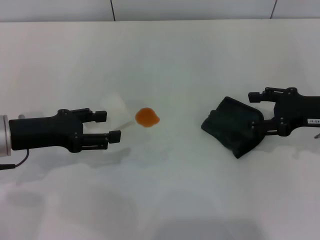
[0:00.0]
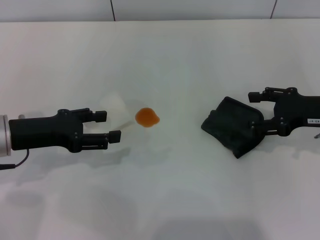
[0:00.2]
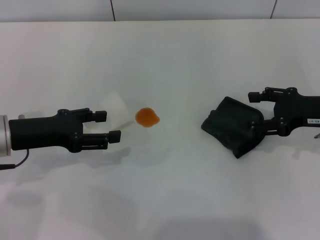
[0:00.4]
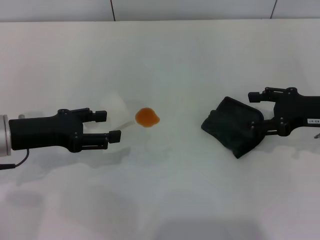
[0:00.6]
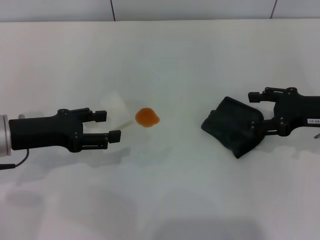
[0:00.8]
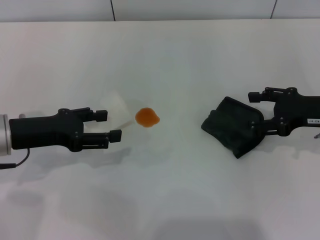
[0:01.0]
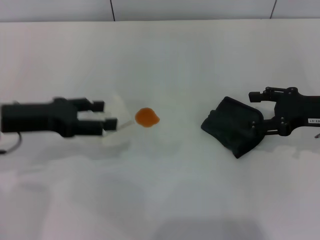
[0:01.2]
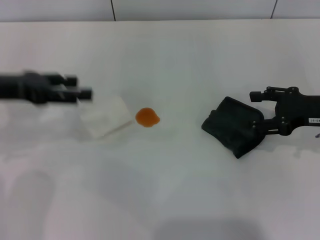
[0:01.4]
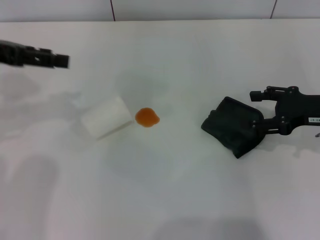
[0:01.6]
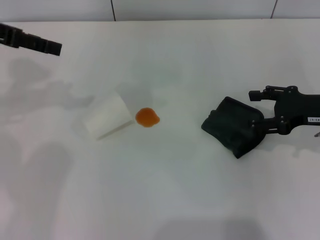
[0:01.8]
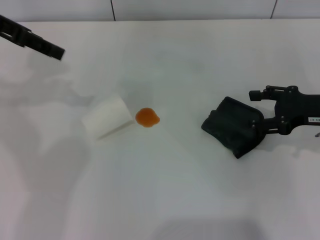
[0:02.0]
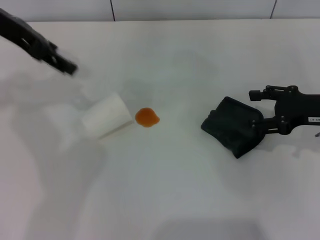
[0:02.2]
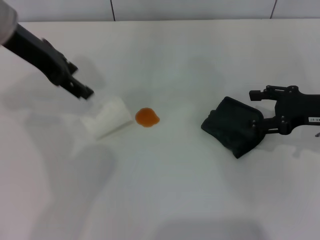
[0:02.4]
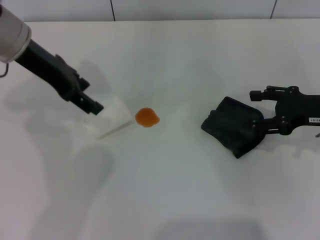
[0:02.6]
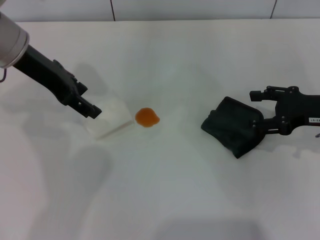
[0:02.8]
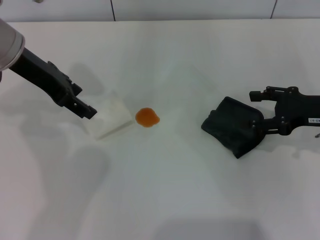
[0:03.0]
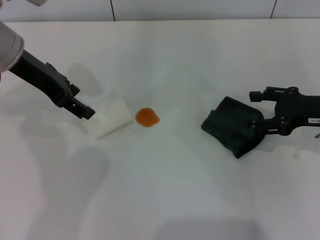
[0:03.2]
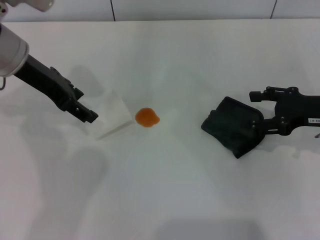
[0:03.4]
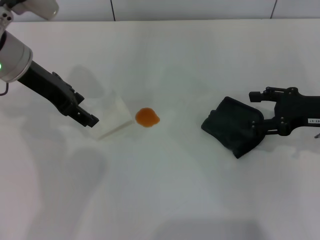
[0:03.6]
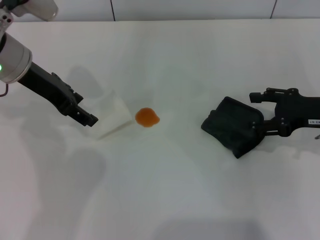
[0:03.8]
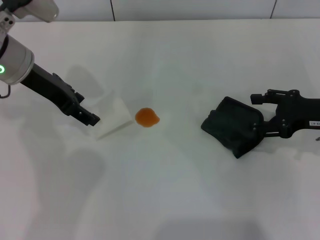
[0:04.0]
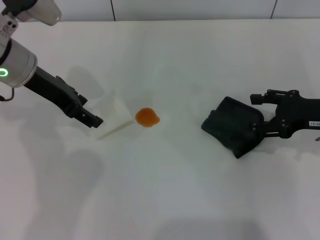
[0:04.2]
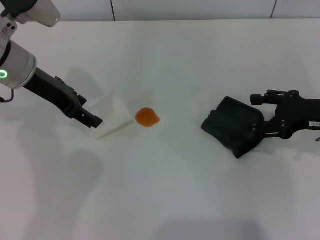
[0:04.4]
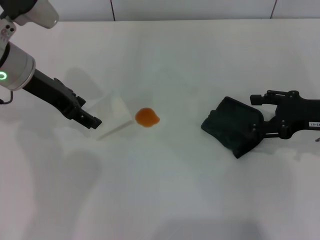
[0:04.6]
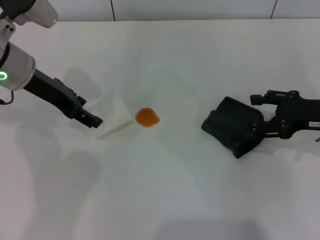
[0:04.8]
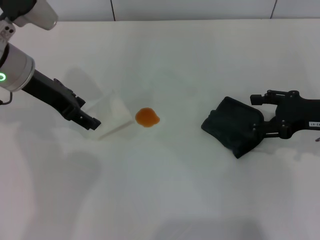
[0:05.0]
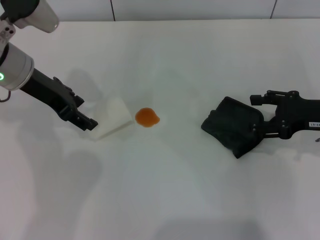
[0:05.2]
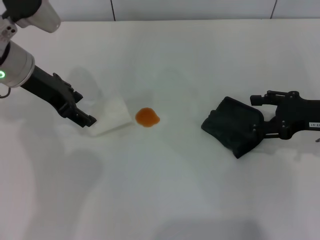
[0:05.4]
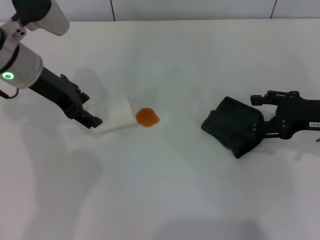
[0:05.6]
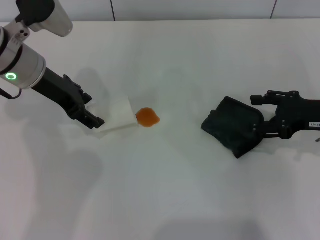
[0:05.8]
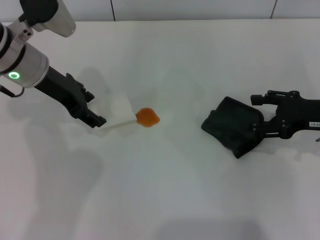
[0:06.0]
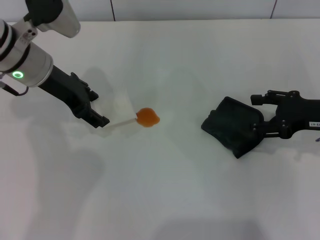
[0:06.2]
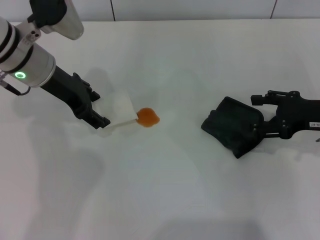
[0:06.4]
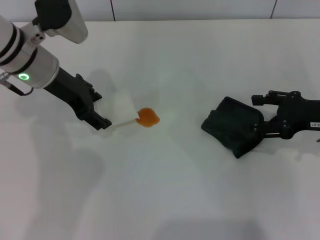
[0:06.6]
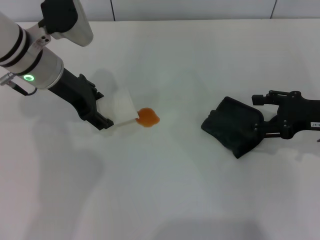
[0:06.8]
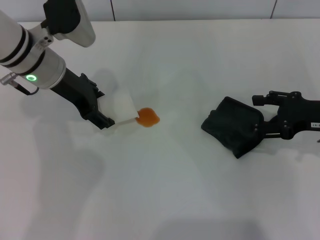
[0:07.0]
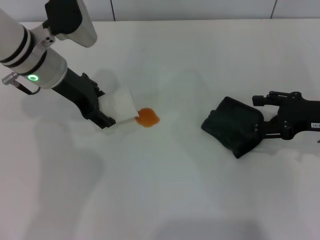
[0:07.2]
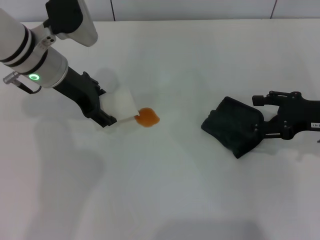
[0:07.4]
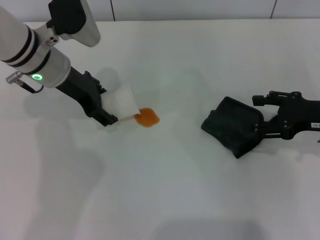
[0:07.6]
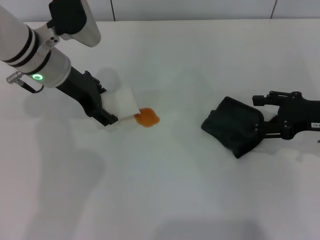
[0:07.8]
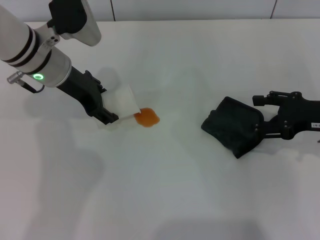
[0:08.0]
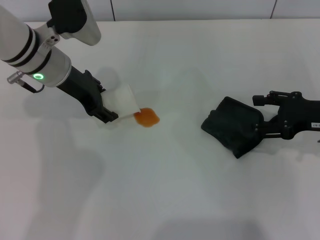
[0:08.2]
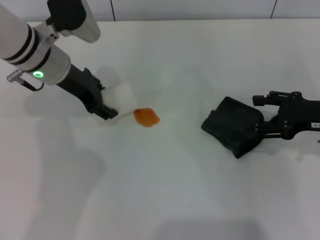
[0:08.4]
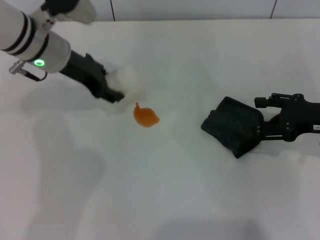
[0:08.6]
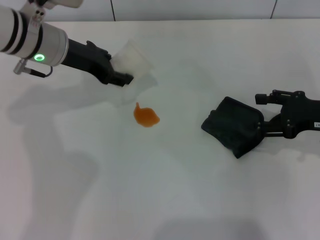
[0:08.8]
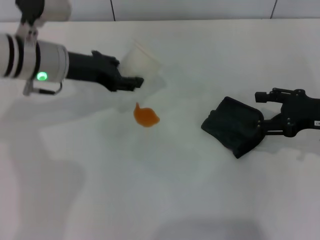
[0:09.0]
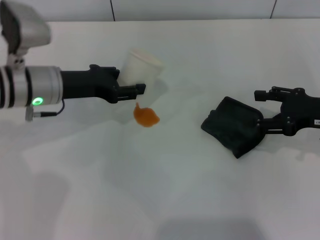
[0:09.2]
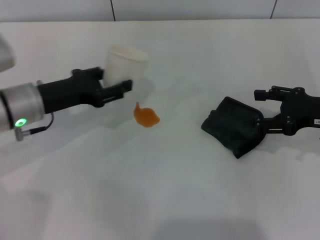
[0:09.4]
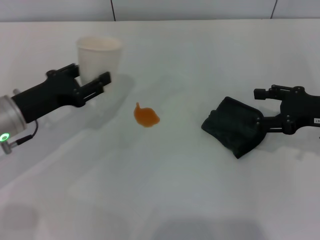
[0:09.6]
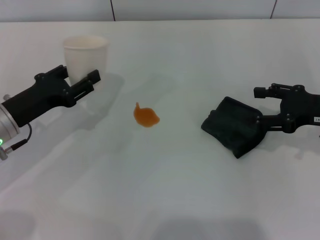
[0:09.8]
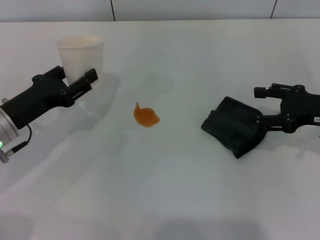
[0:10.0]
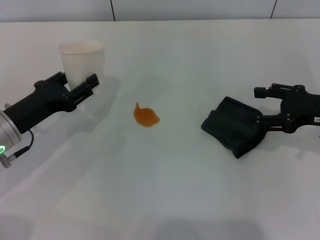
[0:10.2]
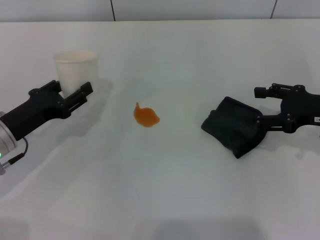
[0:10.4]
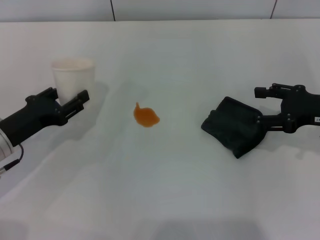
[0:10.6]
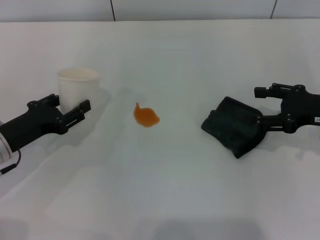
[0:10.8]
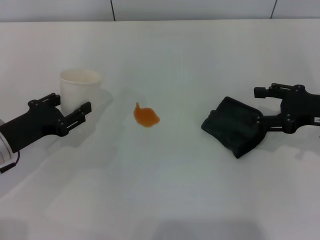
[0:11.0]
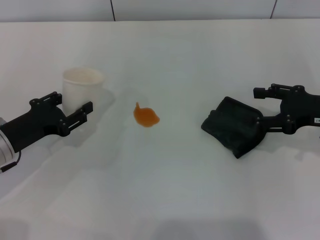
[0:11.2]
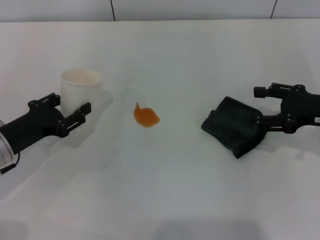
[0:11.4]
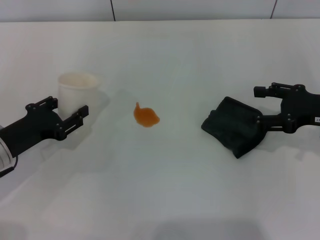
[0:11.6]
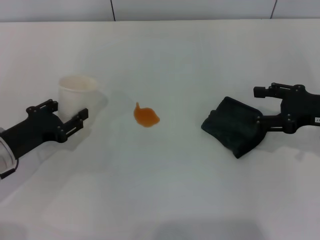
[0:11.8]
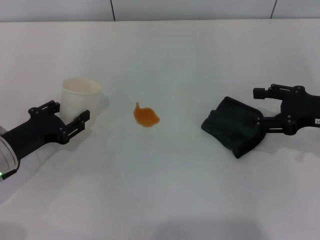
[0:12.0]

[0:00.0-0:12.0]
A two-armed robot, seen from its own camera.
Step, 0:00.0 to 0:08.4: Grasp the paper cup with the left gripper.
0:00.0 to 0:01.6: The left gripper goes roughly 15 cm upward and forward.
0:01.6 to 0:03.0: The left gripper shifts roughly 10 cm to the right.
0:03.0 to 0:06.0: There are only small adjustments of the grippers.
0:06.0 to 0:07.6: The grippers stay close to where they were, moving slightly.
0:07.6 to 0:09.0: The left gripper closes up.
0:09.0 to 0:10.4: The left gripper heads backward, to the left and downward, covering some 15 cm.
0:10.4 to 0:12.0: The grippers make only small movements.

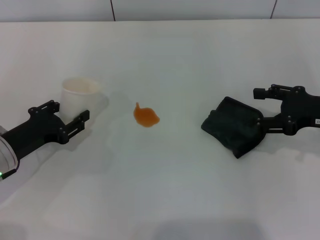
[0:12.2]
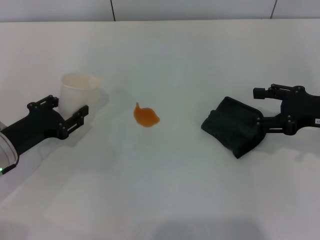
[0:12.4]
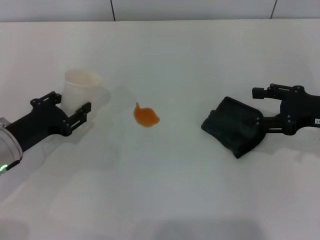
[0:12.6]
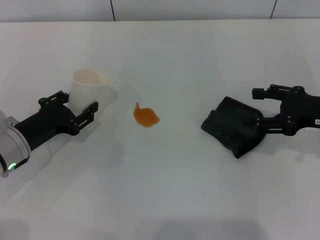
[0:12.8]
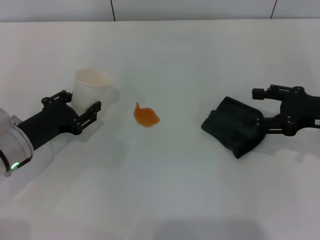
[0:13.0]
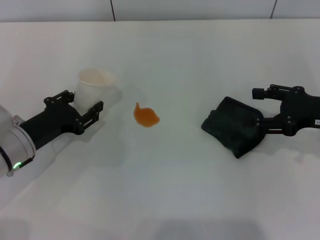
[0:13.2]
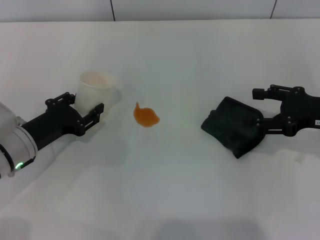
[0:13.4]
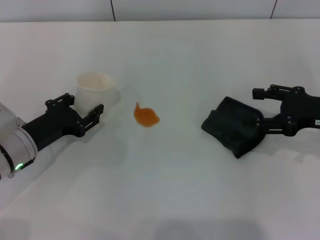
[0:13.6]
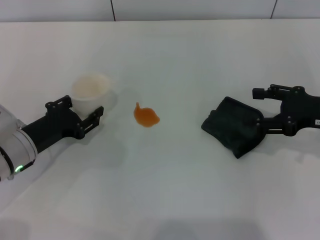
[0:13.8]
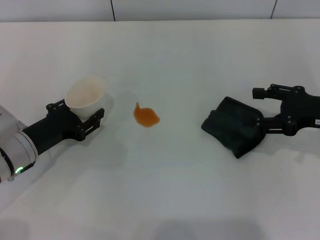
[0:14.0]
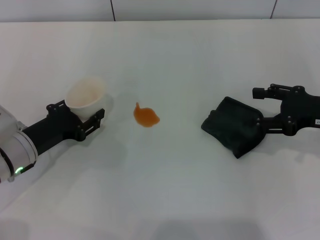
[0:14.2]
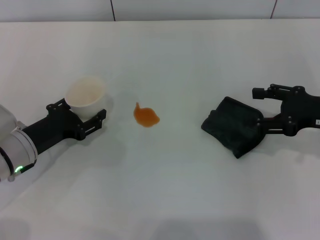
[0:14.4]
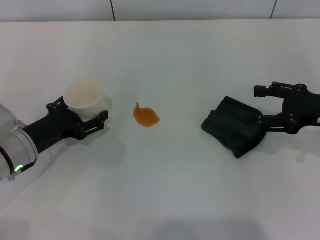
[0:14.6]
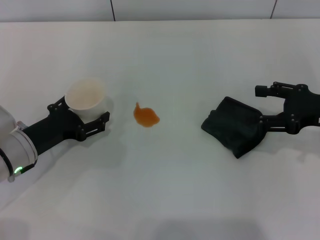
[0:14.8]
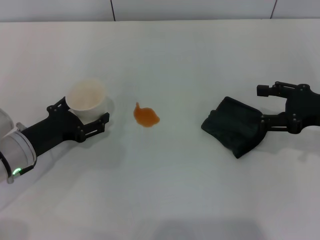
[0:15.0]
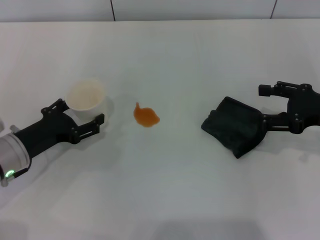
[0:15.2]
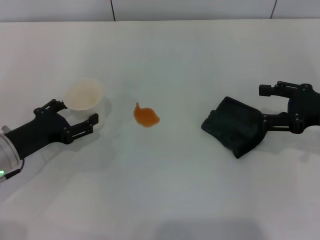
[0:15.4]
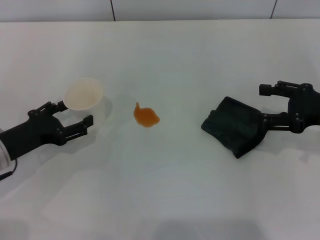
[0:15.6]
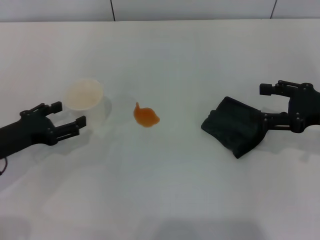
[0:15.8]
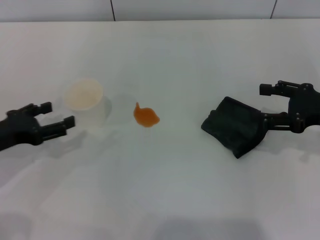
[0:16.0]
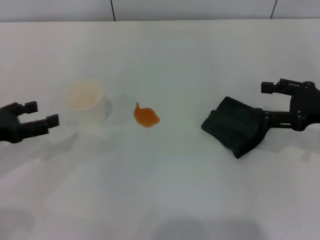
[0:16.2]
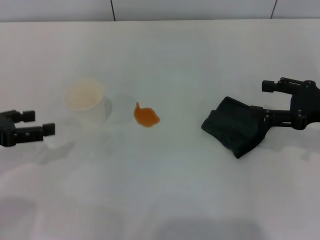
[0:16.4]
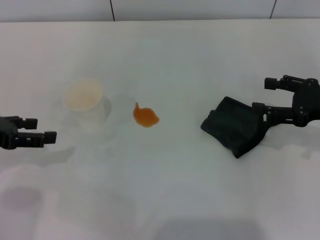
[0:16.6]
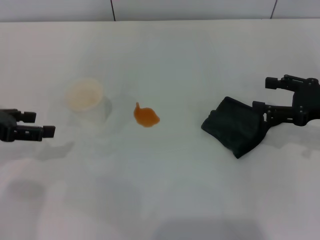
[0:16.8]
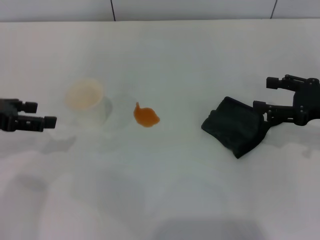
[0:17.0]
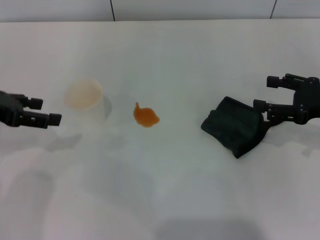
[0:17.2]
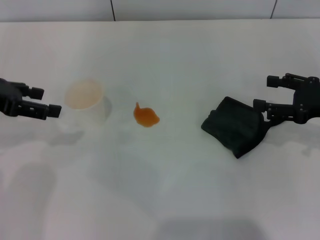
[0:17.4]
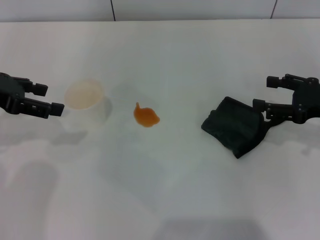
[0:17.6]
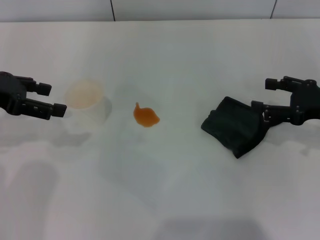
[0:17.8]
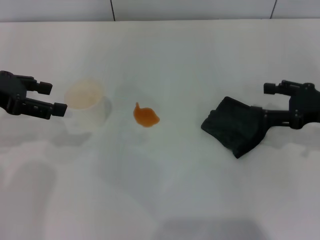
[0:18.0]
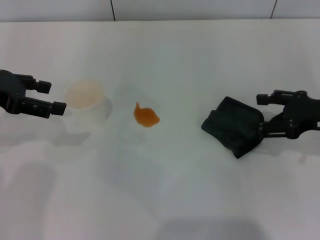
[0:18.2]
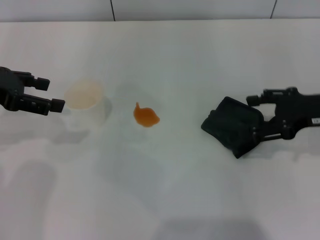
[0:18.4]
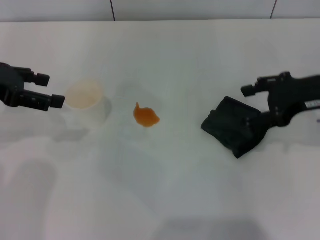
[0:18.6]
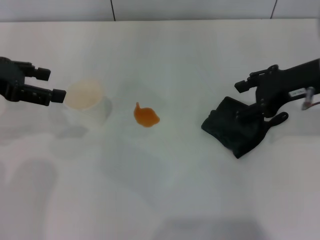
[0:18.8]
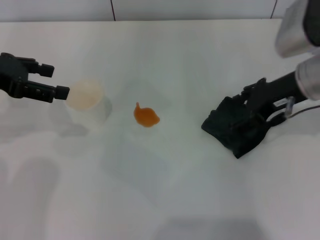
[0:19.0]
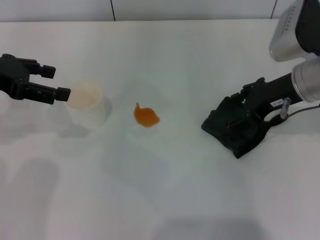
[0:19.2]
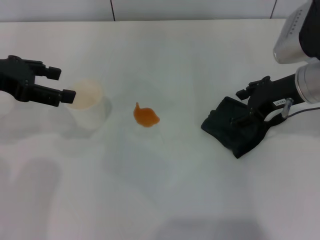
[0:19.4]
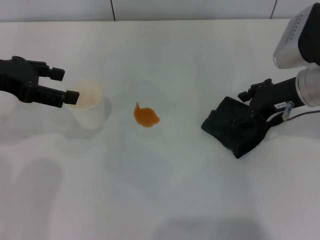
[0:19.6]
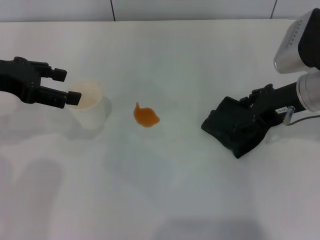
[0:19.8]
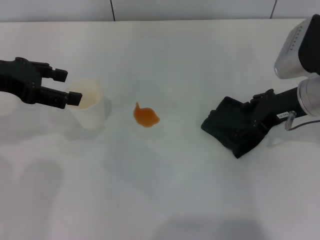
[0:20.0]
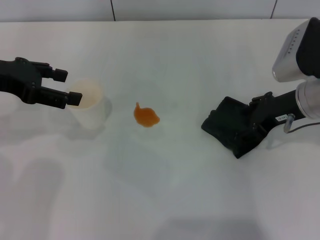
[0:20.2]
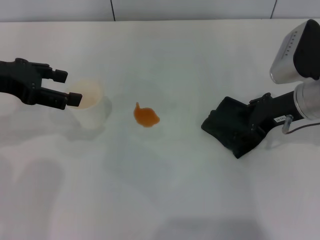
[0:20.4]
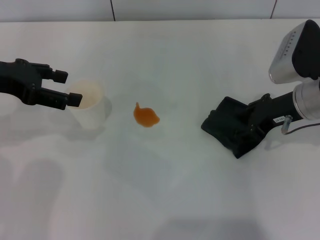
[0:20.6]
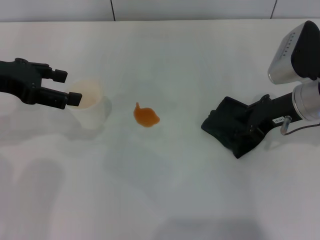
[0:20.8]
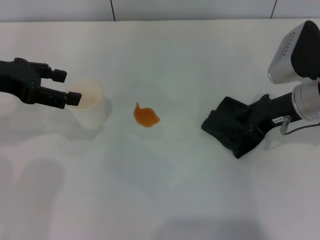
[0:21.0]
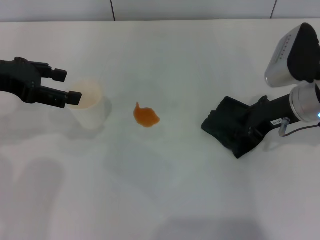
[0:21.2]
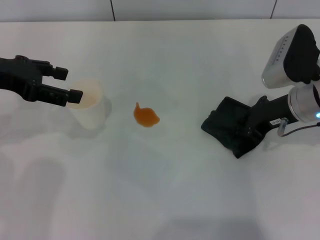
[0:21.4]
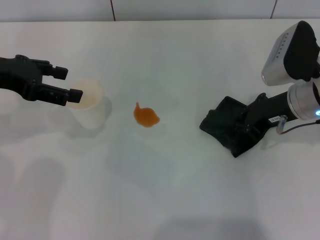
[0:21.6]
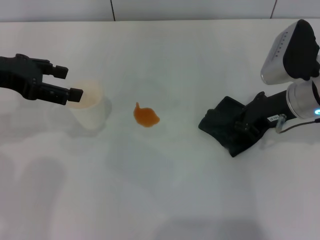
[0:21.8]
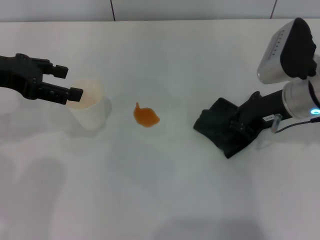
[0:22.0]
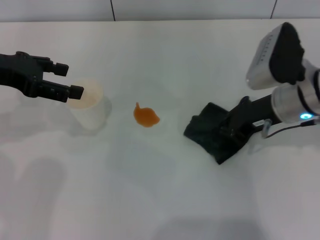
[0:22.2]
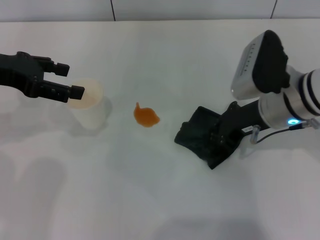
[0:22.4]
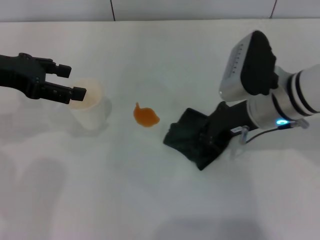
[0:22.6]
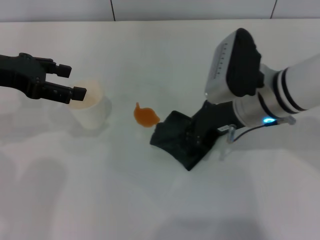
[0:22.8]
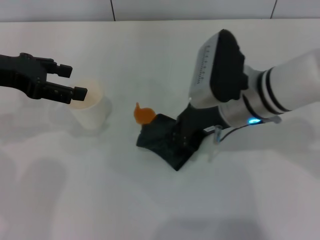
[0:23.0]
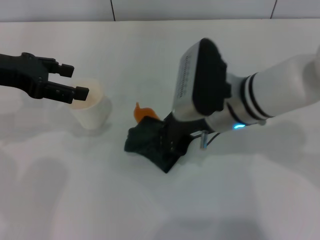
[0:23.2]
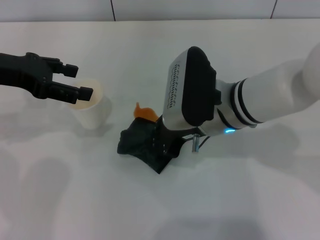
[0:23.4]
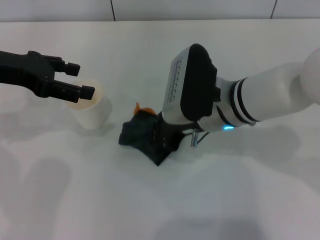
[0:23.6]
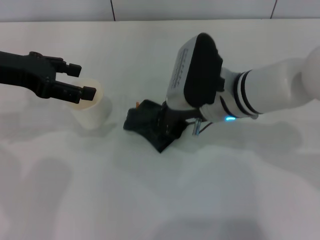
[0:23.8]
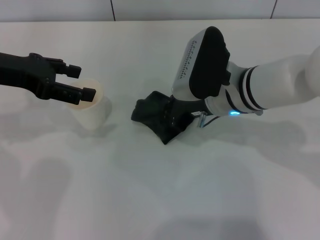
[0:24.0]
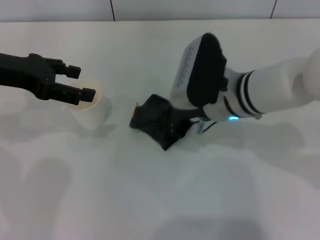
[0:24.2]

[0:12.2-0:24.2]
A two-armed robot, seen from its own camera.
Step, 0:12.2 to 0:15.8: Stand the paper cup upright with the left gripper.
Step, 0:16.2 to 0:21.8: Grasp the rag with the right gripper.
0:12.2 to 0:13.8: There are only small adjustments of the grippers.
0:13.8 to 0:15.2: The left gripper opens up.
0:15.2 to 0:16.6: The left gripper moves upward and to the left, roughly 15 cm.
0:16.6 to 0:18.2: The left gripper is displaced upward by approximately 5 cm.
0:18.2 to 0:19.8: The right gripper heads to the left, covering some 10 cm.
0:19.8 to 0:21.2: The right gripper closes its fingers.
0:21.2 to 0:22.6: The right gripper moves to the left, approximately 5 cm, and closes up.
0:22.6 to 0:24.2: The right gripper moves to the left, some 5 cm.
